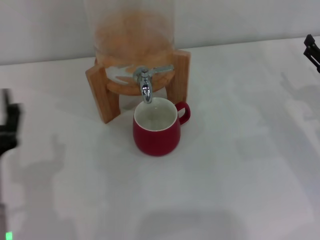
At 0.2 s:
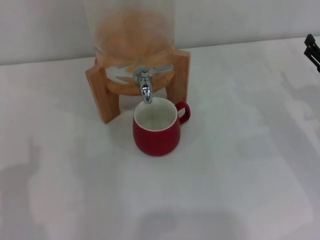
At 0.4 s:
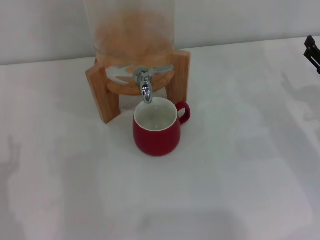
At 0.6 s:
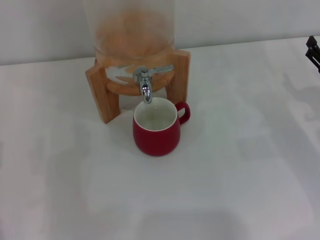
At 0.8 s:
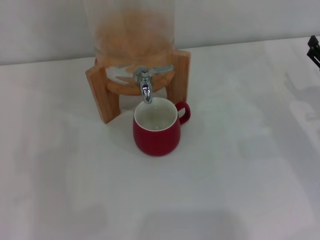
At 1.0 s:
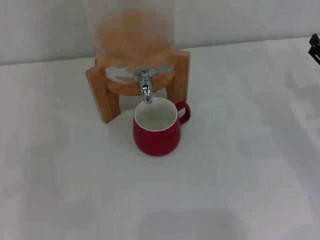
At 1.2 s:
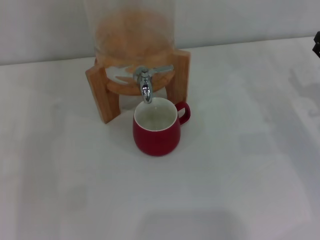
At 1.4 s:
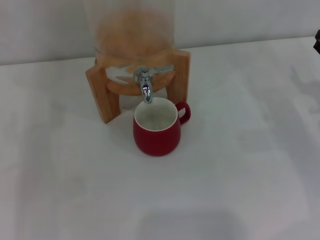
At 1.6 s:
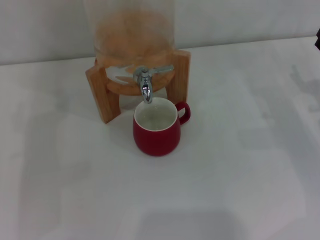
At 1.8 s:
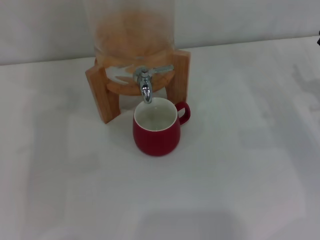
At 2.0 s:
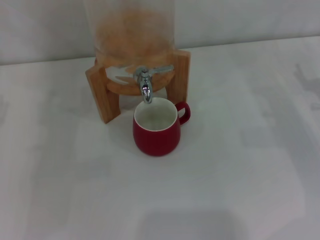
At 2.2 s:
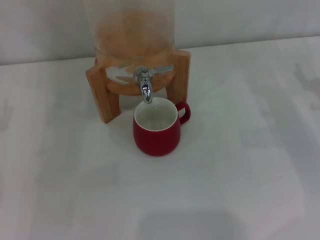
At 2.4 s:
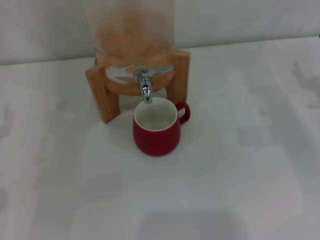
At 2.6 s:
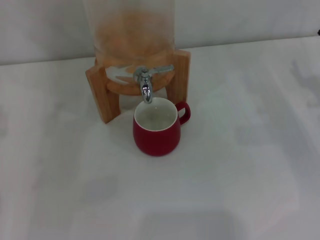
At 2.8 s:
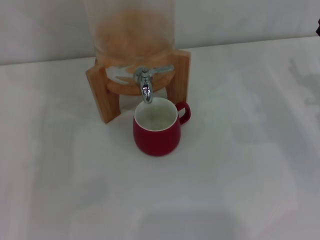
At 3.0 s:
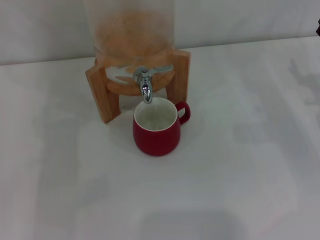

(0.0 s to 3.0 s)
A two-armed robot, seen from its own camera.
Task of the whole recording: the right gripper pick up the red cup and place it horizontally under the faucet, the left gripper turn on the faucet to fill the cup, and then turn off the faucet.
0.0 s - 1.6 s: The left gripper moves to the left and forward, approximately 20 cm.
